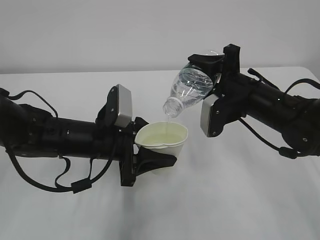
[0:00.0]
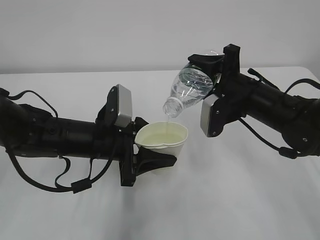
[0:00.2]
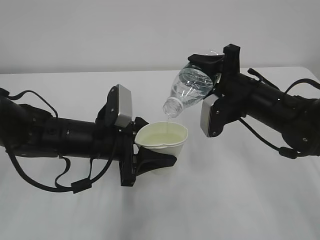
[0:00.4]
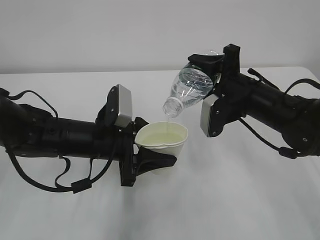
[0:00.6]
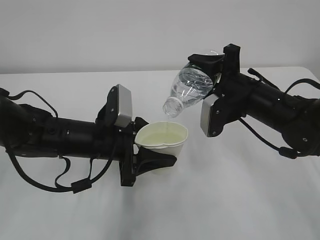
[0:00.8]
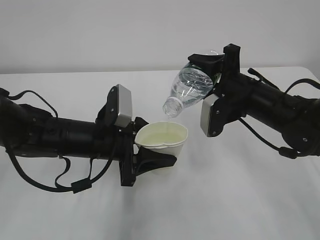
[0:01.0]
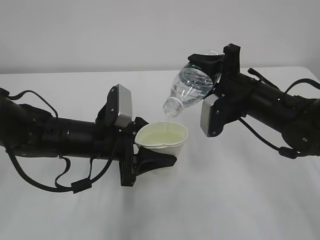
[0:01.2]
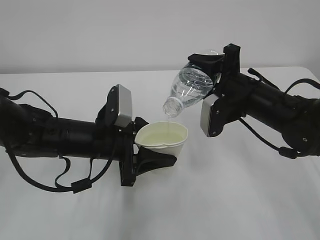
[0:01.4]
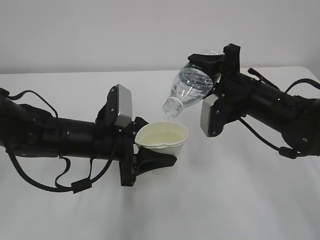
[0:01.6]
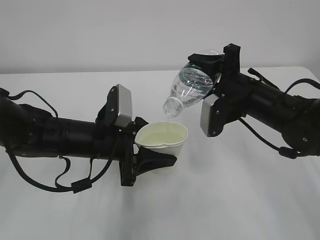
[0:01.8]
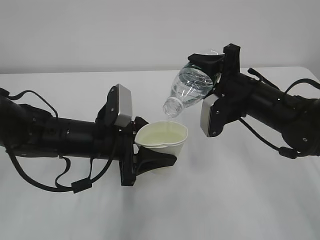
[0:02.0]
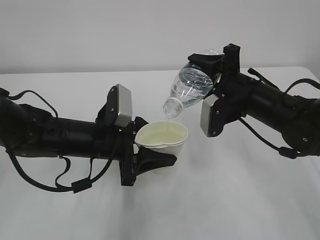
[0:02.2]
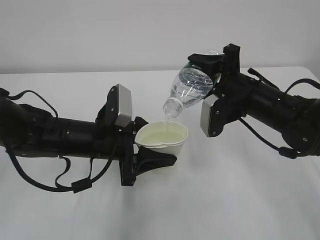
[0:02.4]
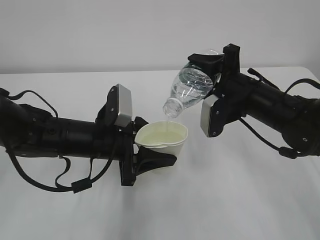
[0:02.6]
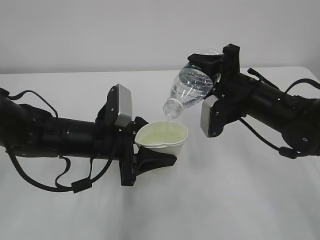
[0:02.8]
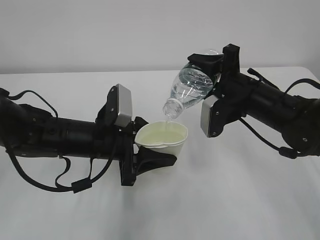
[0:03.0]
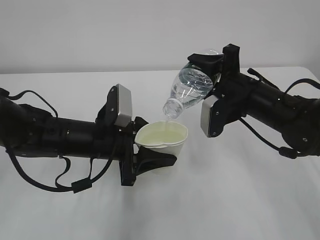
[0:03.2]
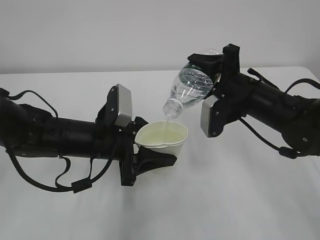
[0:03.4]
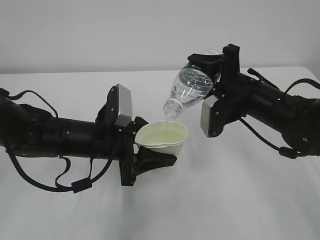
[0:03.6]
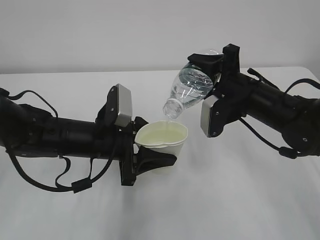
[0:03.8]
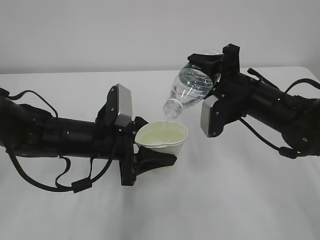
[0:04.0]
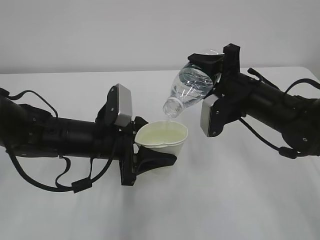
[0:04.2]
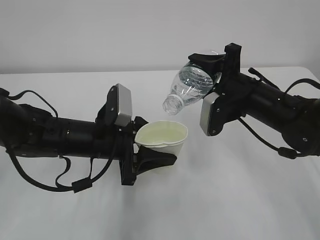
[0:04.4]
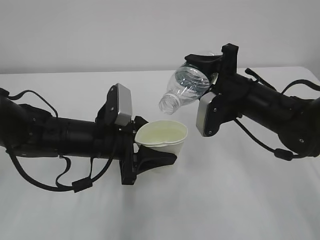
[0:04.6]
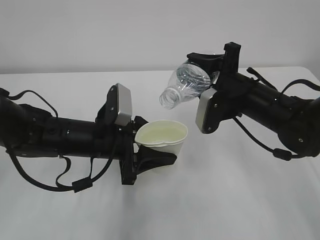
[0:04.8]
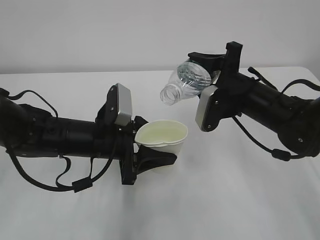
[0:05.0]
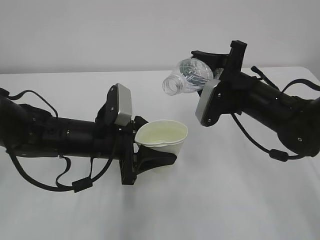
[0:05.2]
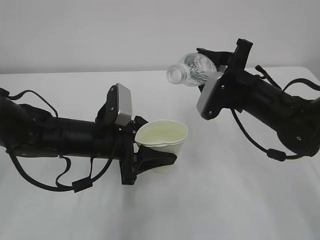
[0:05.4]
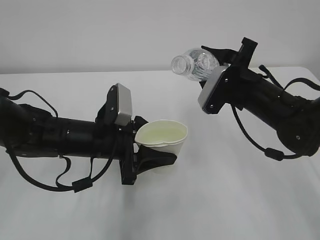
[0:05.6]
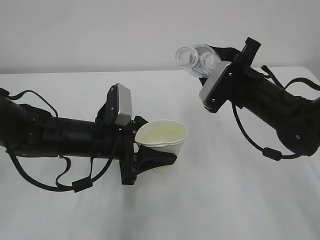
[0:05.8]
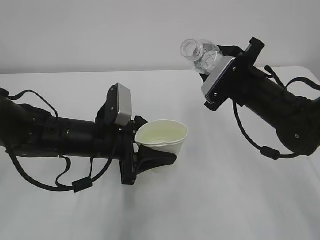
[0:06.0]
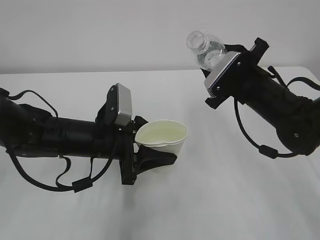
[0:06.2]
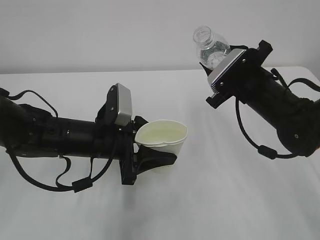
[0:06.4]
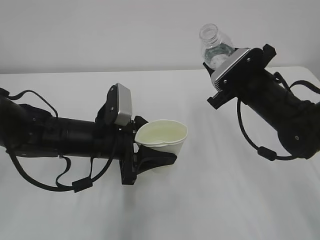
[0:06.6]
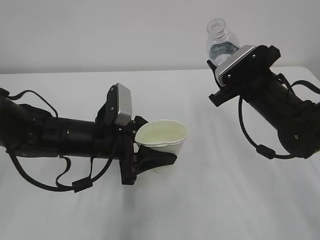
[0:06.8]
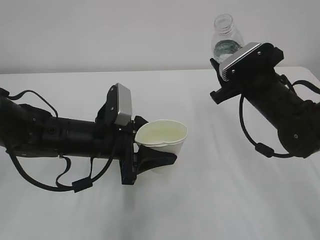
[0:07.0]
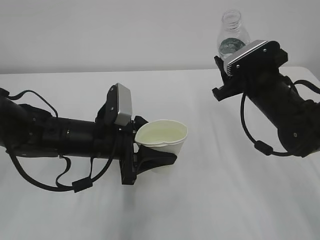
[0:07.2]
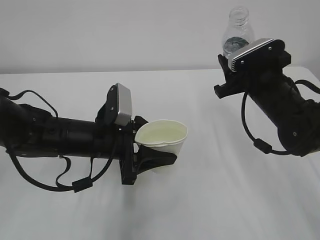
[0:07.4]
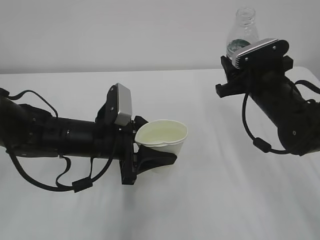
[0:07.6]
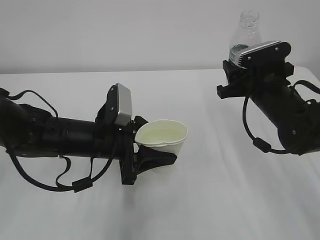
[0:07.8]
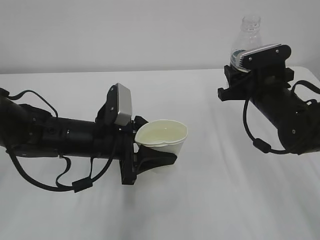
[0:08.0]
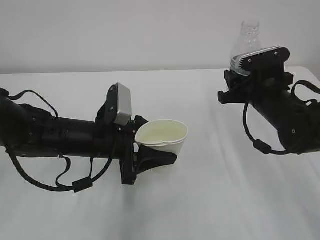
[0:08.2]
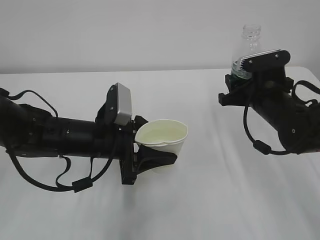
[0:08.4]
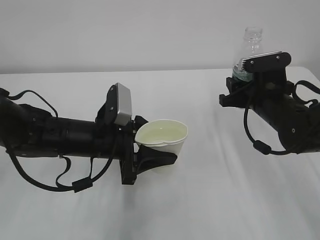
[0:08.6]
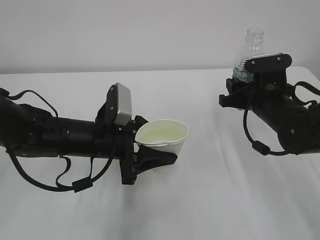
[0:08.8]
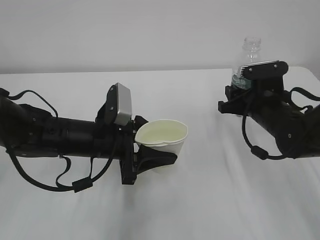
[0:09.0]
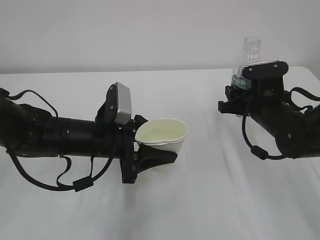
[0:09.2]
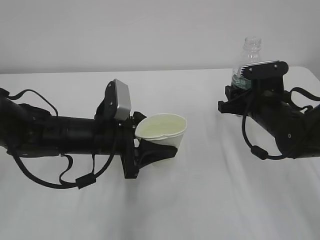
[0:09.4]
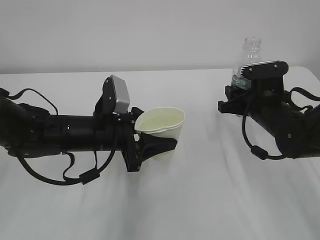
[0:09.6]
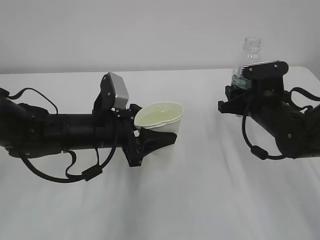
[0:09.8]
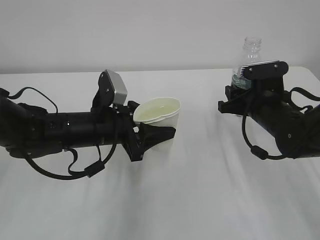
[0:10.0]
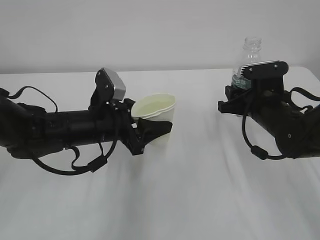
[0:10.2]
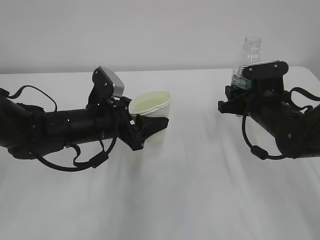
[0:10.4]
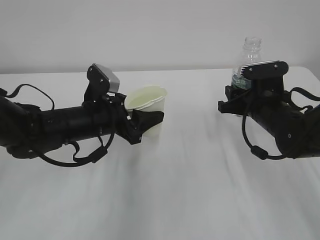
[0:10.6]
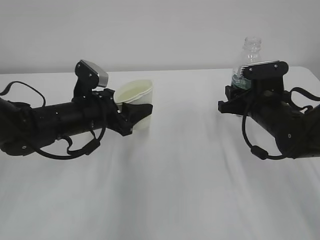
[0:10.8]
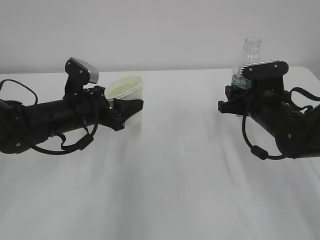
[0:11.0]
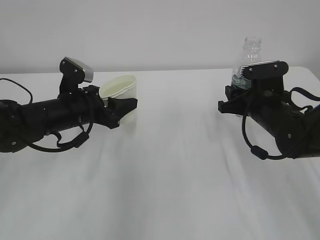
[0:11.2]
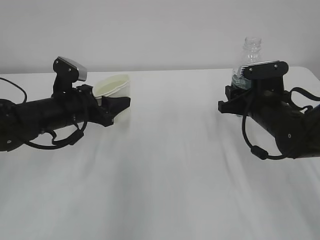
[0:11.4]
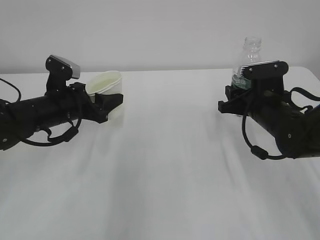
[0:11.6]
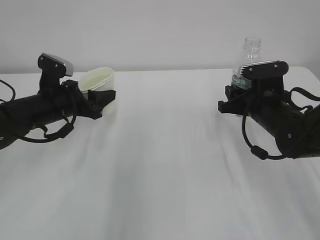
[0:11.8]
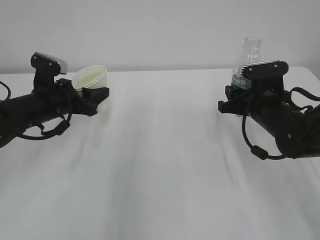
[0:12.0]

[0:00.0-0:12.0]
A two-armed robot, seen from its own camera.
0:00.0 to 0:04.4: The two grippers keep their place.
0:10.4 to 0:12.0: The left gripper moves to the left and forward, some 10 cm.

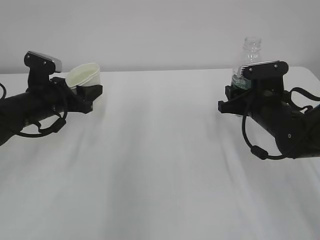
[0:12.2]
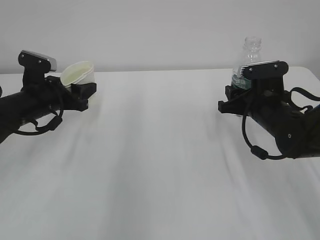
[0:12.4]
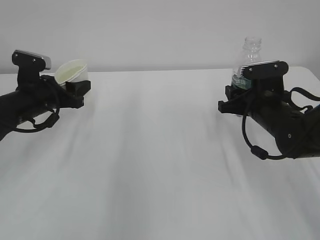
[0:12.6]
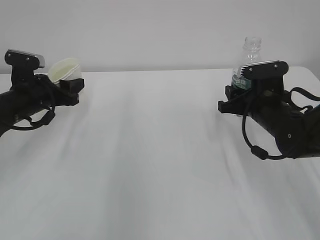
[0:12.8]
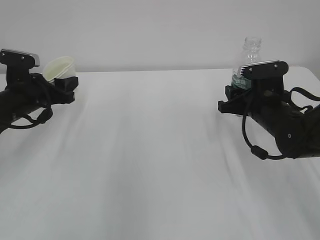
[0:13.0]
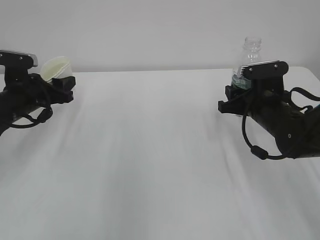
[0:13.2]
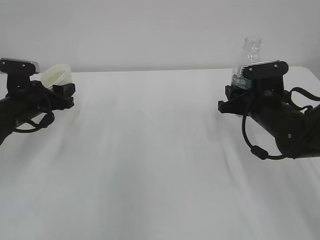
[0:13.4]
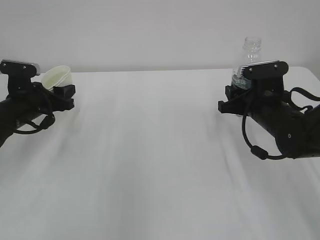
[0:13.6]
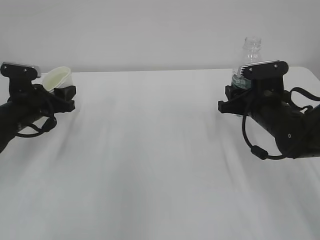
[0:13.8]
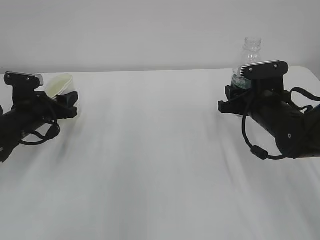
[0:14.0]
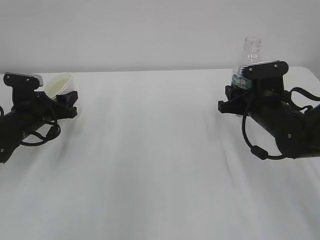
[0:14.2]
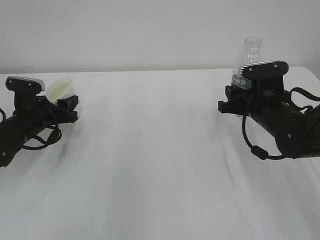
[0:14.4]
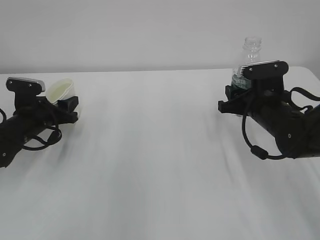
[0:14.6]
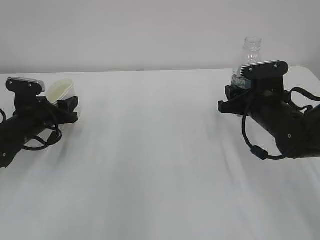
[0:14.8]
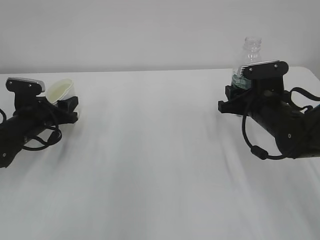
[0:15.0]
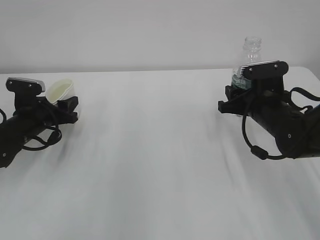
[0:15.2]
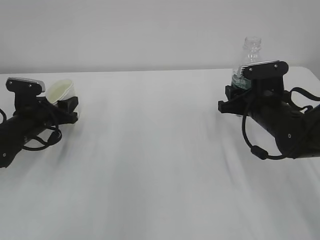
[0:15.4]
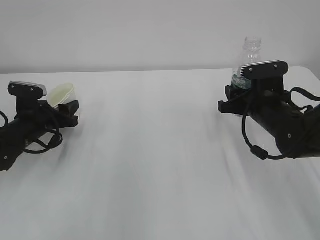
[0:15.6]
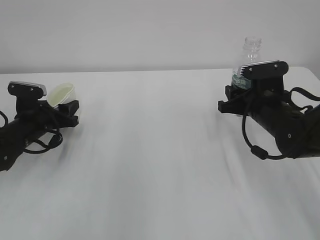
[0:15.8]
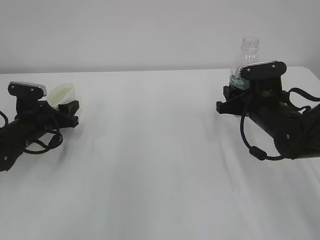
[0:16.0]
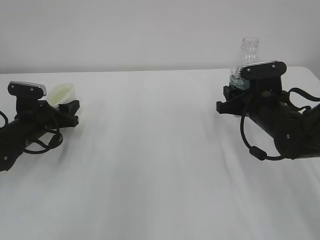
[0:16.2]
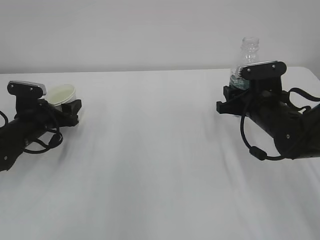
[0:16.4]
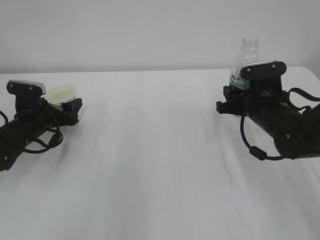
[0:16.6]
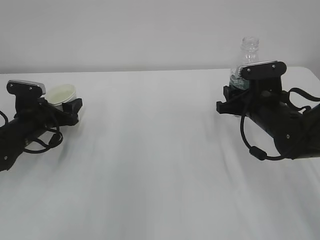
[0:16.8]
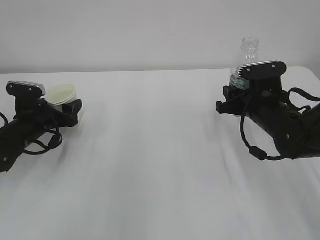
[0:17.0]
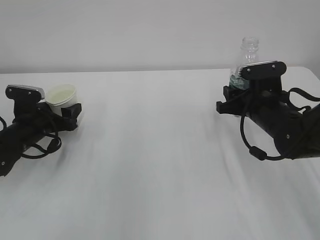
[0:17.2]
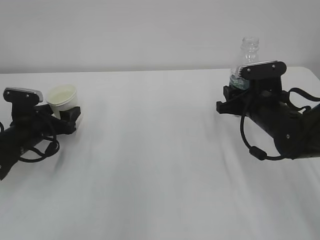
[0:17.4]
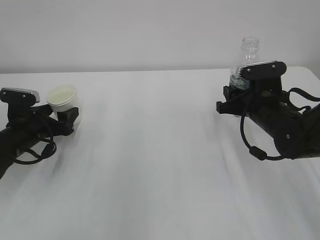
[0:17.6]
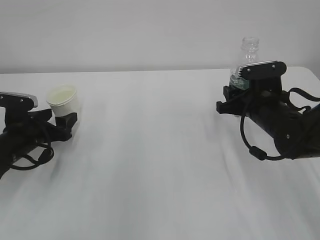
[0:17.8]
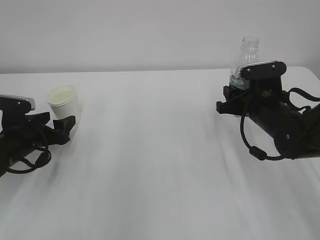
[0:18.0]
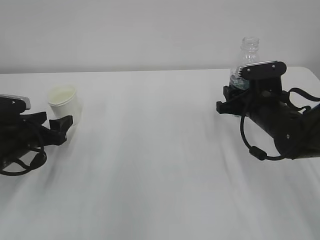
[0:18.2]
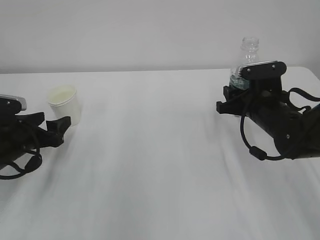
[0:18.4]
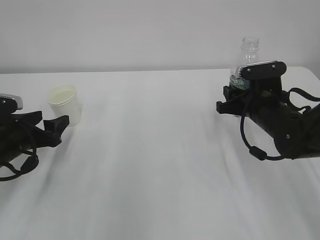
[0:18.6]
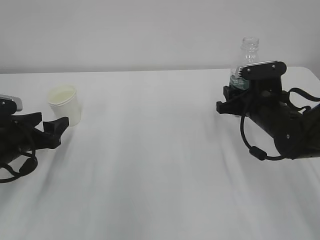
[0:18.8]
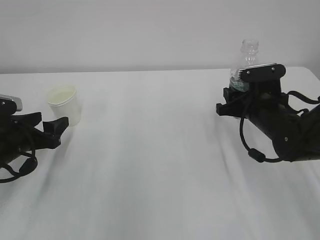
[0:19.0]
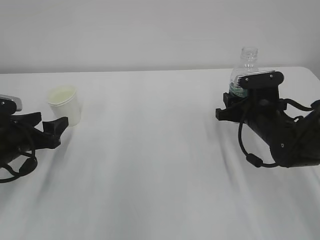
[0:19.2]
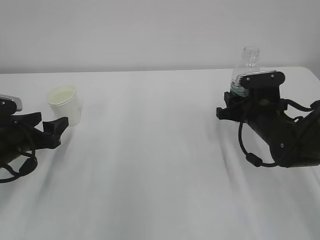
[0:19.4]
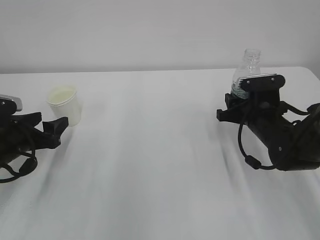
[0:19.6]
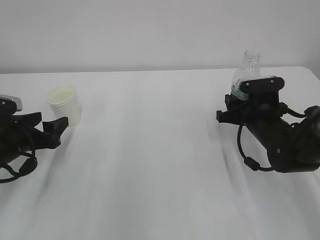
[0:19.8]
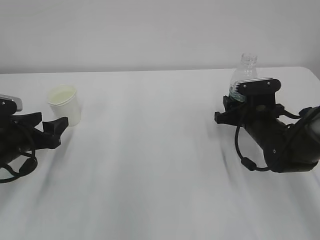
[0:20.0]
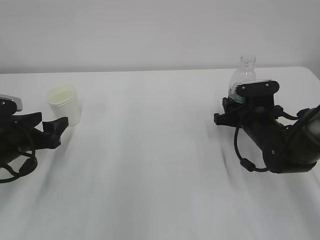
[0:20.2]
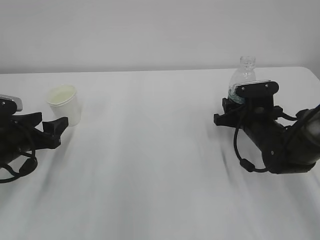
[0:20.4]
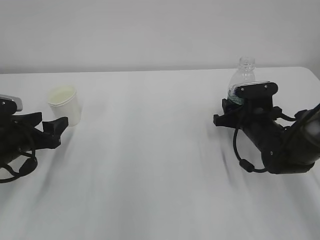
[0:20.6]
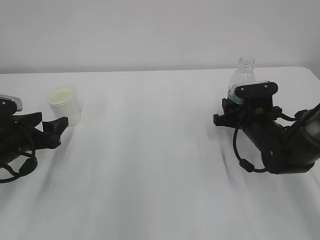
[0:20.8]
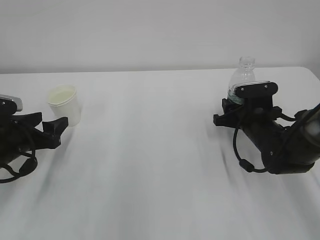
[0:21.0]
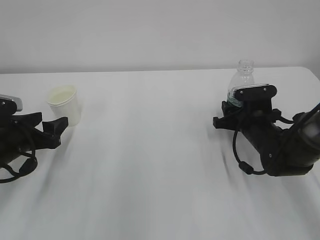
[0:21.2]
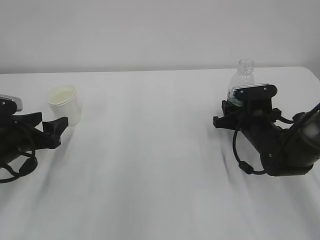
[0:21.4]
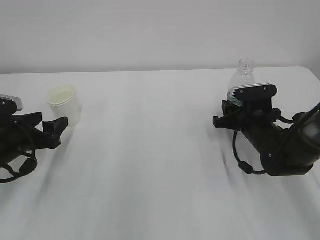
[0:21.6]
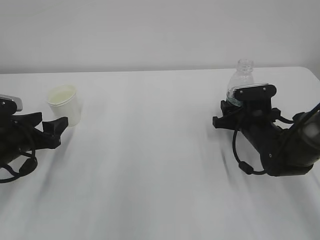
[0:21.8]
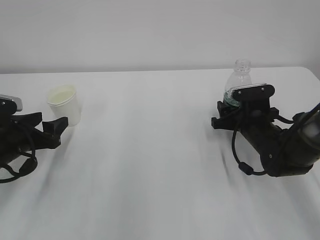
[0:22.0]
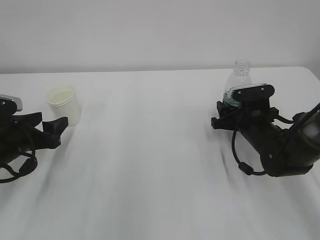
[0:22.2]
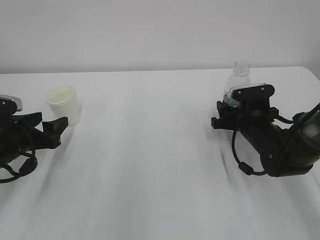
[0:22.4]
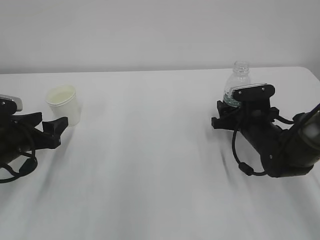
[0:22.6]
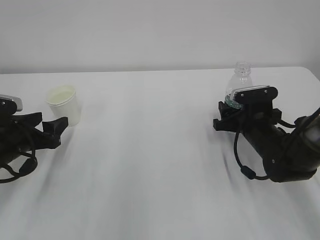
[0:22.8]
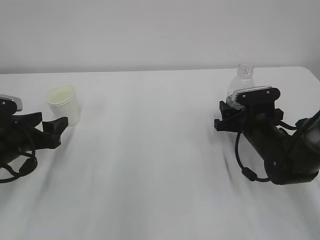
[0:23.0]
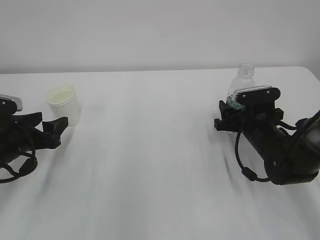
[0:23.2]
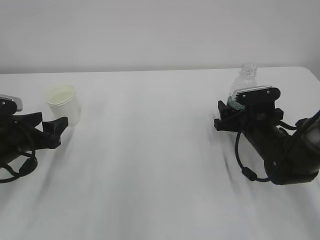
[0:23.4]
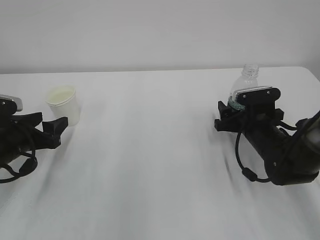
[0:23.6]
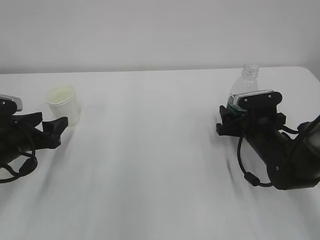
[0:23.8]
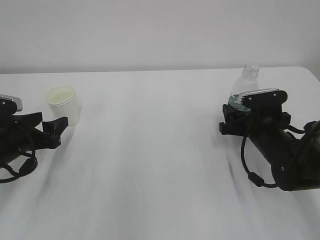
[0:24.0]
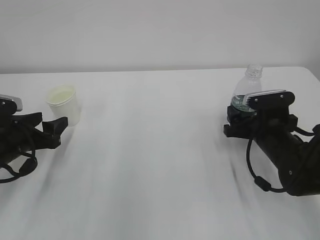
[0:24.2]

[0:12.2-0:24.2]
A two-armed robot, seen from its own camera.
0:12.2 to 0:13.8: The left gripper moves about 5 cm.
0:13.8 to 0:15.2: The grippers make only small movements.
0:15.2 to 0:16.6: The left gripper opens its fingers.
0:16.6 to 0:18.2: The left gripper shifts about 5 cm backward.
0:18.2 to 0:21.2: The grippers stay close to where they were, moving slightly.
0:21.2 to 0:22.6: The right gripper opens its fingers.
0:22.6 to 0:24.2: The right gripper opens its fingers.
